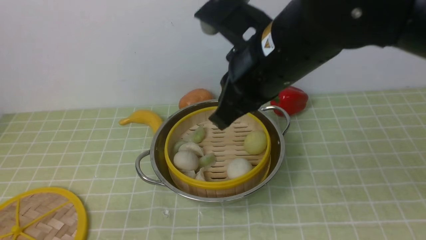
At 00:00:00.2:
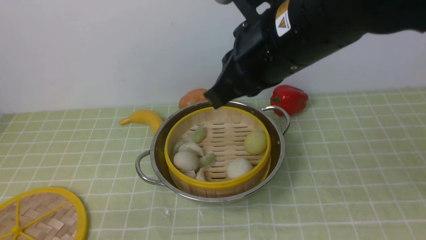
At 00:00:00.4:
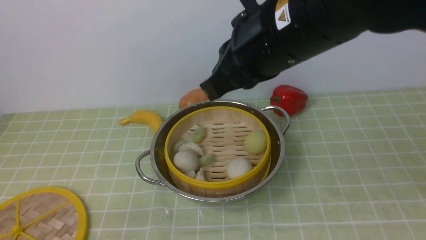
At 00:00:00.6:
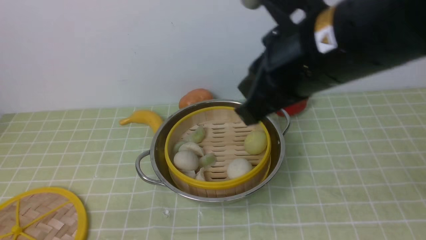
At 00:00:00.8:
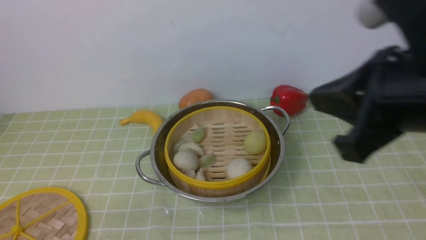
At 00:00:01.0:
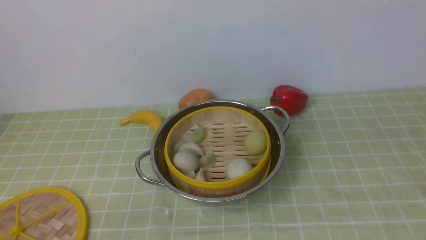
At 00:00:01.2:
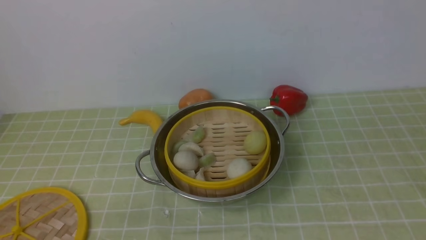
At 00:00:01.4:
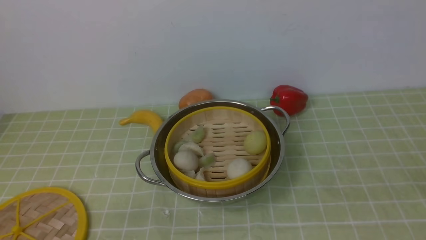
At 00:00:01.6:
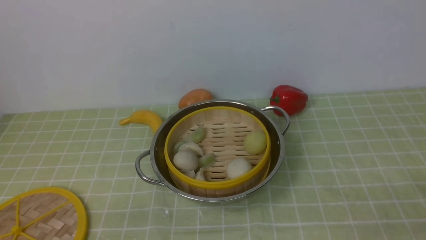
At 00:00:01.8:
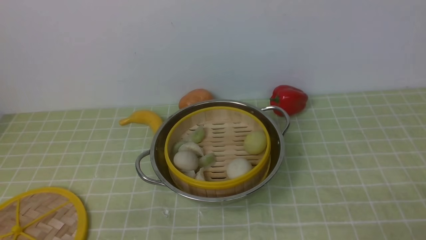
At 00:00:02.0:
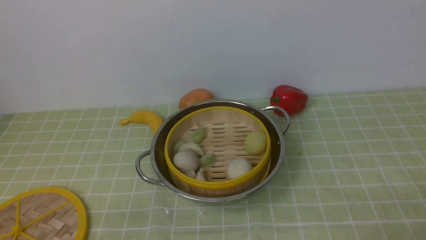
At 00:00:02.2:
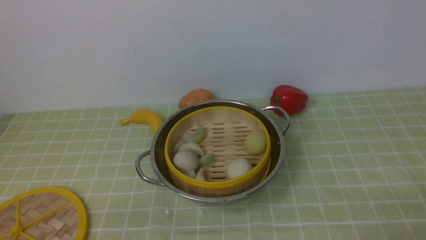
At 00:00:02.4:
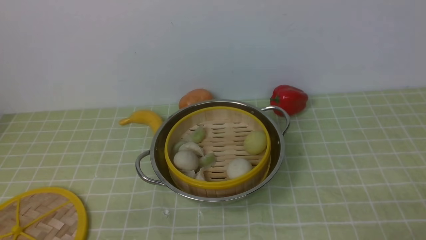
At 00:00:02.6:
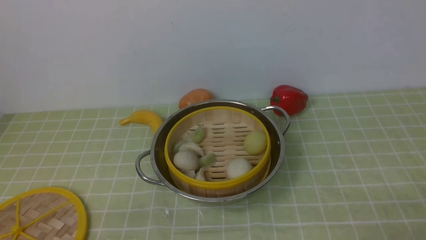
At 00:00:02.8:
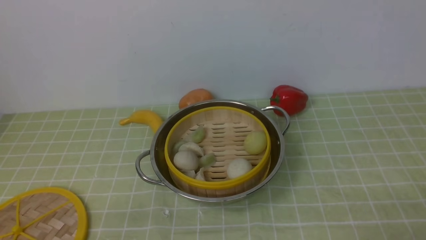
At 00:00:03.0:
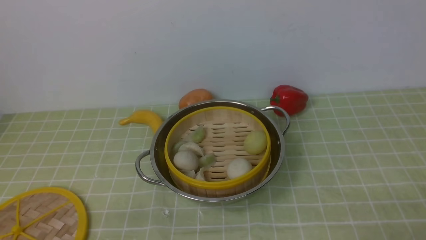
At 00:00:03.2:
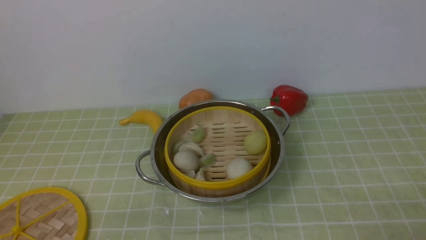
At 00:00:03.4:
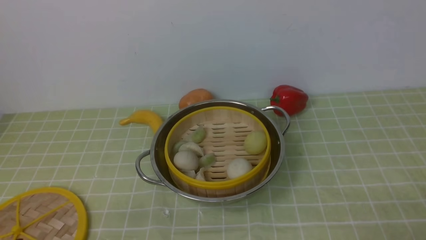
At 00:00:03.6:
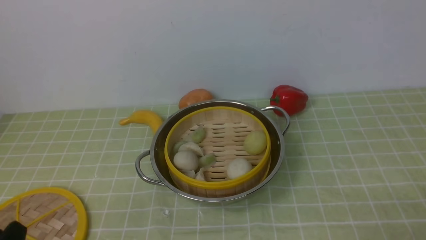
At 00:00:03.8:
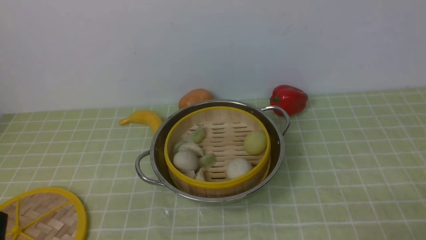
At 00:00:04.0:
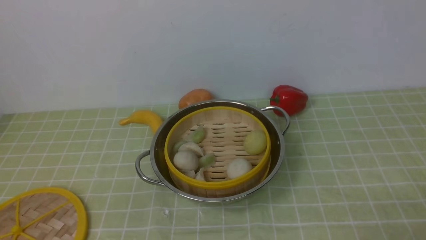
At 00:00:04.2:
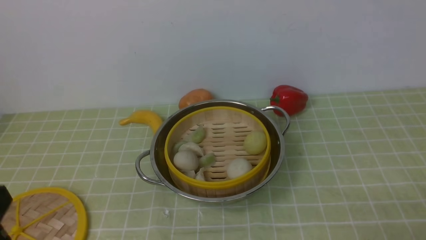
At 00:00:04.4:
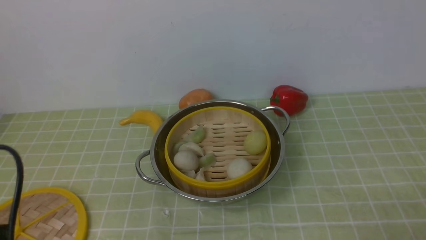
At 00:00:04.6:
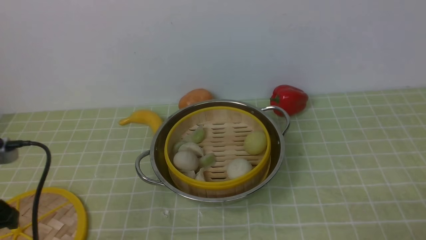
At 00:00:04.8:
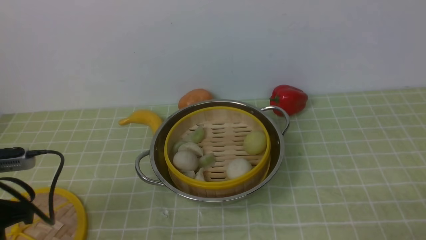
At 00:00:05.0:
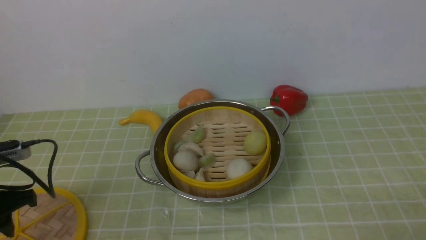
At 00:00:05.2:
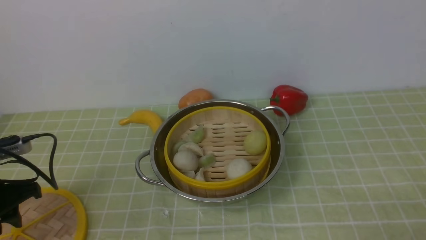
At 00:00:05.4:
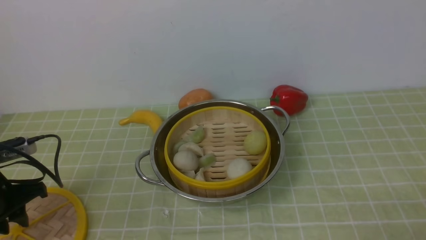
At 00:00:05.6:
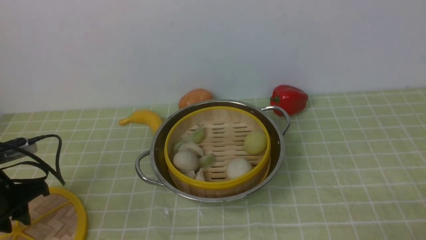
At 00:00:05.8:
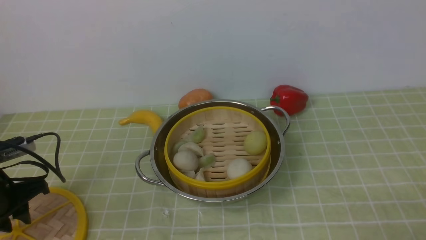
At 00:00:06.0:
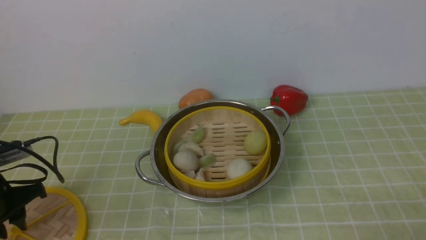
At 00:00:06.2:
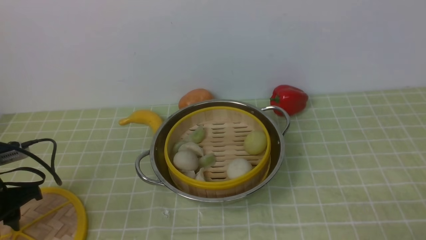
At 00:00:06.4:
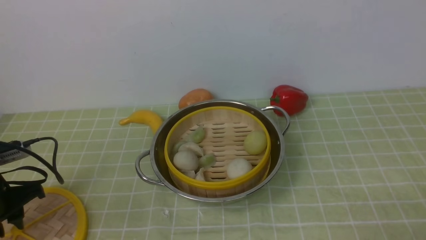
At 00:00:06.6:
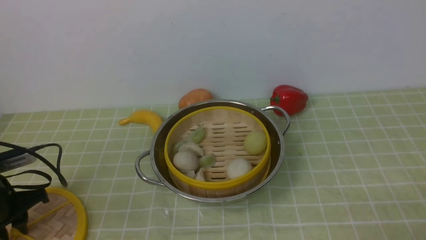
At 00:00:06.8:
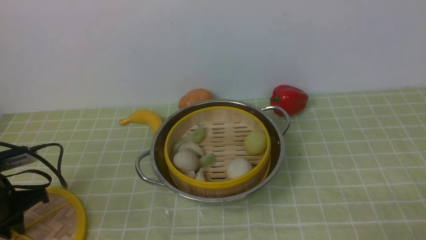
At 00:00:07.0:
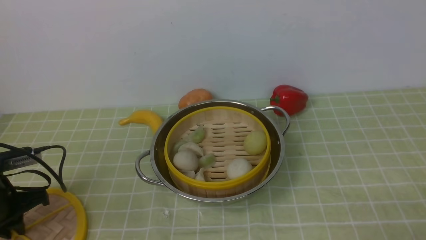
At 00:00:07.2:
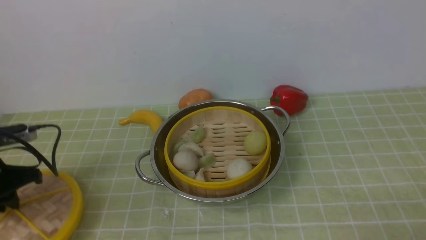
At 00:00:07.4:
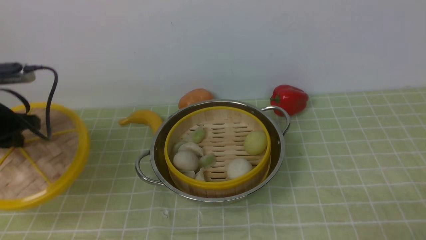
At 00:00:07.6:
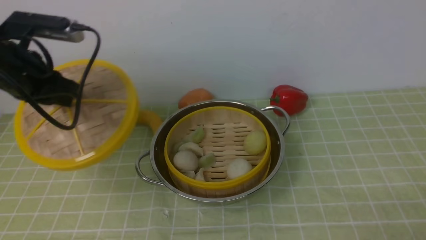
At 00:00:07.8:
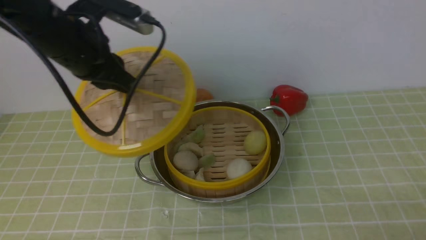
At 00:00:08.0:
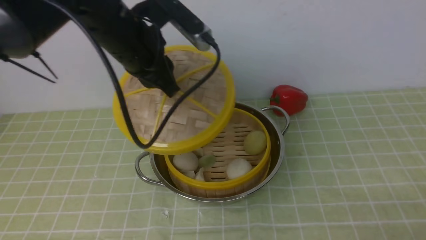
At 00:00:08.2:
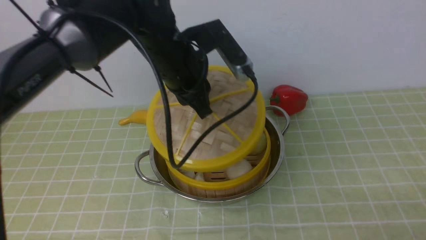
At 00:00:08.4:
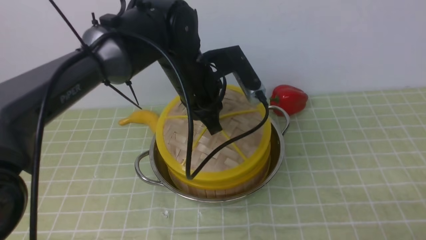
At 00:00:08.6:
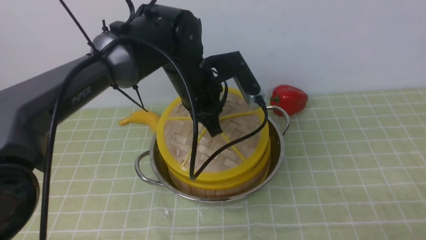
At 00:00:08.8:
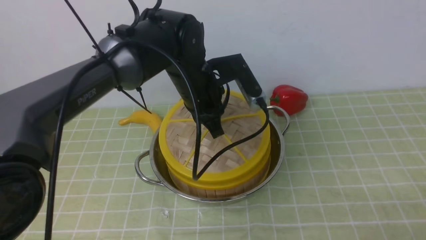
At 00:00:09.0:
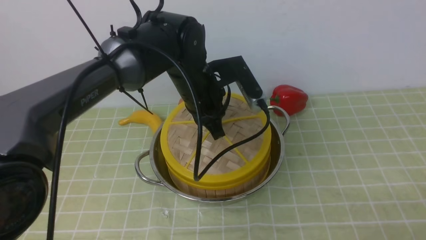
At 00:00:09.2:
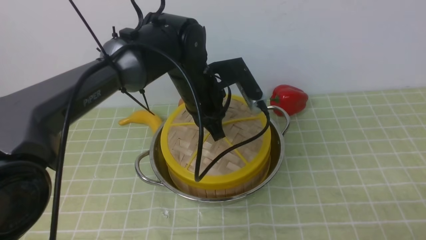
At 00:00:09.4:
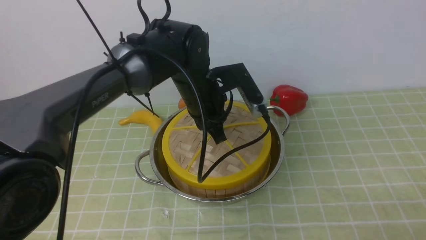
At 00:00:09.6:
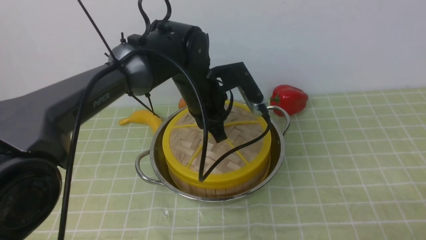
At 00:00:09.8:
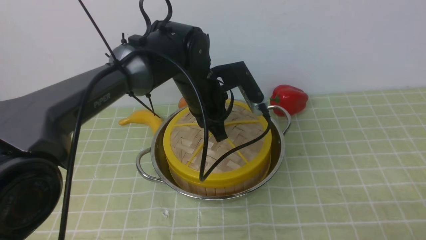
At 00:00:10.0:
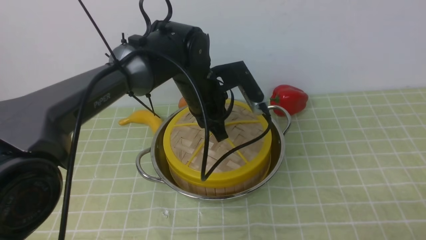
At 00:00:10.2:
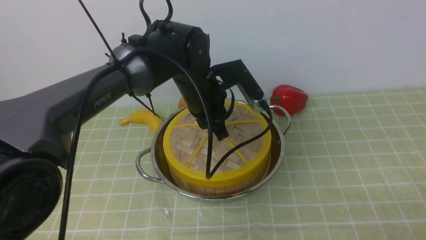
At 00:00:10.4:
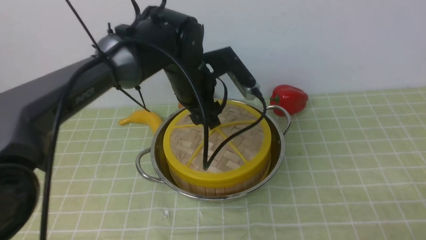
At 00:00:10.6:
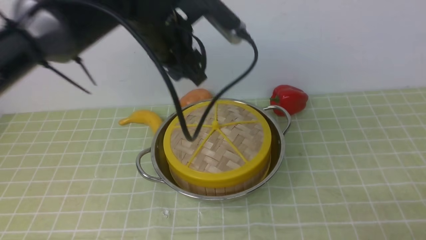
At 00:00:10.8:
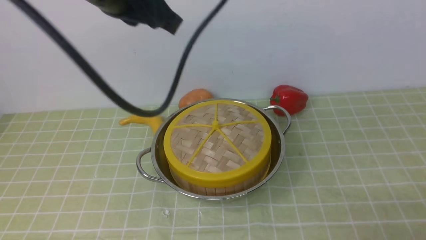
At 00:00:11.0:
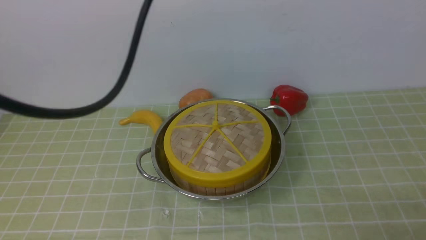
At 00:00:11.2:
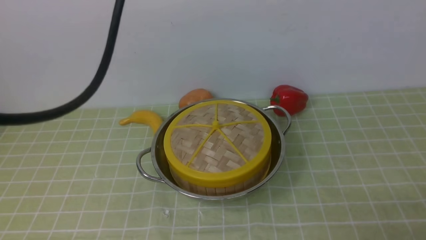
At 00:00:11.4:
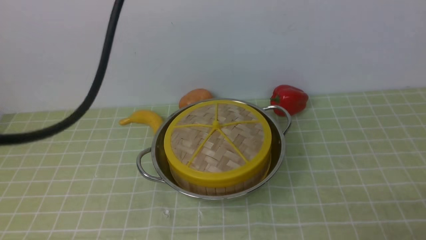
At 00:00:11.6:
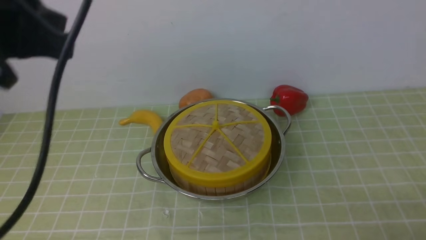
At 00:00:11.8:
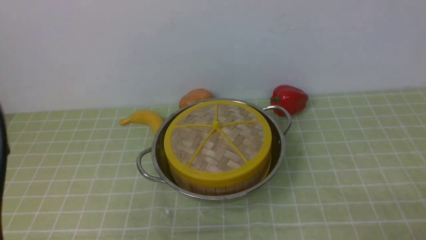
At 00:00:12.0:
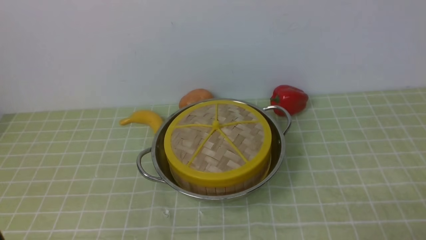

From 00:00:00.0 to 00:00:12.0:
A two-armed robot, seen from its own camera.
Task of the whole recording: place the steamer in the pot on the green tablecloth, and put the lid on the steamer.
Step, from 00:00:00.0 to 00:00:07.4: use the left arm to lift the lid of the steamer.
Step, from 00:00:07.6 to 00:00:10.8: use the left arm to place the steamer lid on the steamer.
From 00:00:00.0 to 00:00:01.6: The right gripper moves to the right and backward, about 35 cm.
From 00:00:03.0 to 00:00:04.4: The left gripper shifts approximately 10 cm upward.
From 00:00:04.4 to 00:00:06.0: The left gripper shifts approximately 20 cm forward, downward and to the left.
From 00:00:06.0 to 00:00:07.6: The left gripper heads upward and forward, covering approximately 15 cm, and closes its fingers.
From 00:00:07.6 to 00:00:09.0: The left gripper is displaced to the right by some 25 cm.
From 00:00:09.0 to 00:00:10.4: The left gripper opens up.
From 00:00:10.4 to 00:00:12.0: The left gripper moves backward and to the left, some 35 cm, and closes its fingers.

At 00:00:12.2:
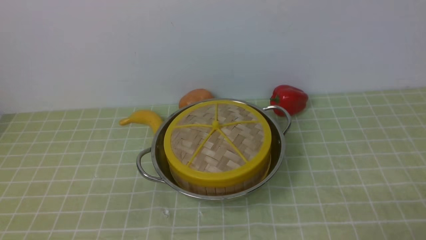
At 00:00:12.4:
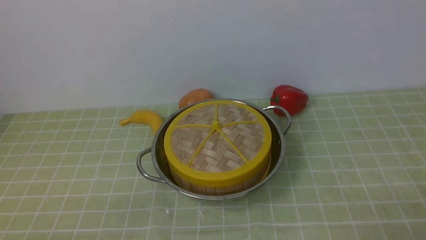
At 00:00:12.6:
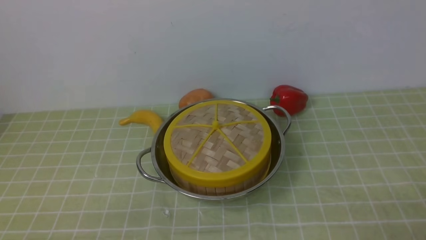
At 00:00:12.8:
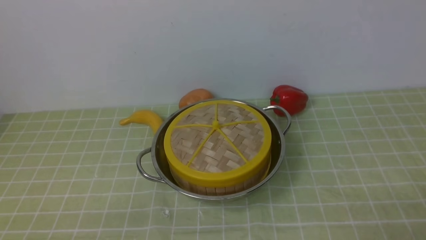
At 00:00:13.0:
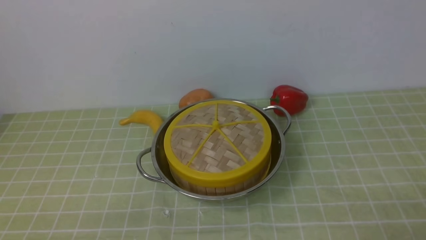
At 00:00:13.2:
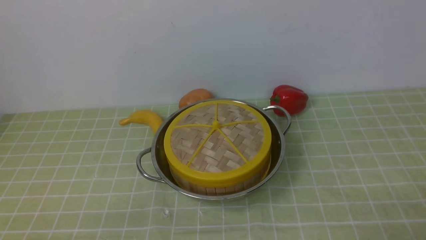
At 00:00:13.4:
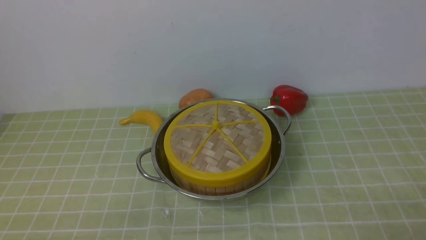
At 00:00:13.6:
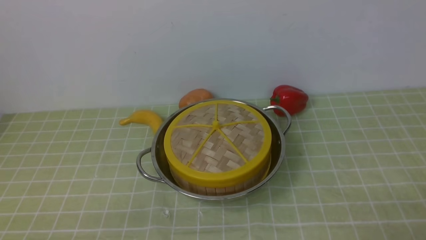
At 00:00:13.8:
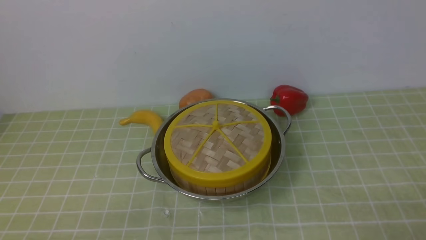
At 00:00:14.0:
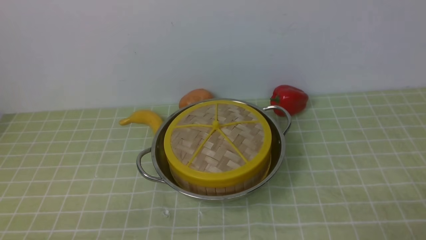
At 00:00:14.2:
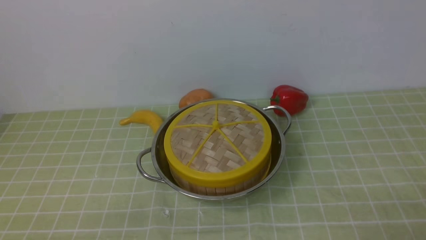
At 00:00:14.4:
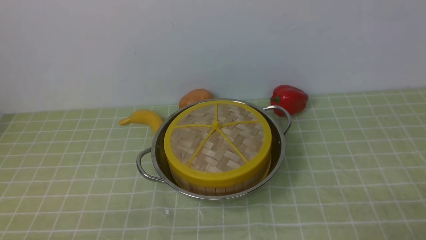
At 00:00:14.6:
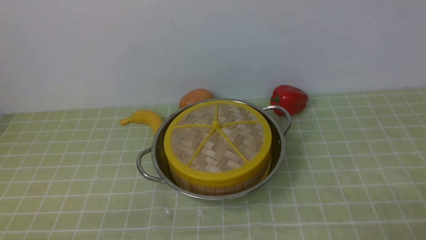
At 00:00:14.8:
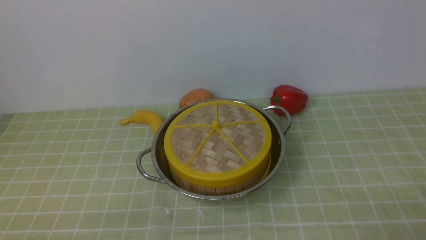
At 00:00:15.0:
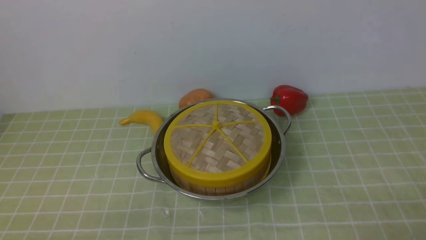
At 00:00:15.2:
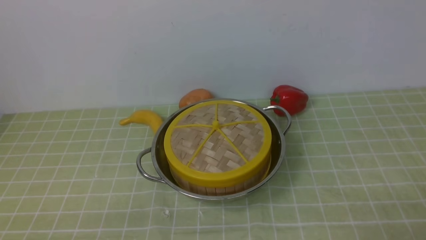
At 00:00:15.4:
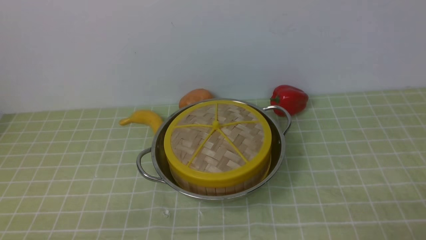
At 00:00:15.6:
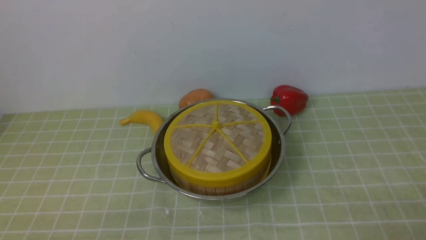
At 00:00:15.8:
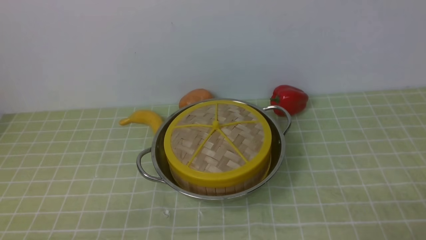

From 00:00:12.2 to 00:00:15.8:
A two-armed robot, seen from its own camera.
Task of the whole recording: place the steamer in the pot on the green tablecloth, and put the lid on the steamer.
From 00:00:14.0 to 00:00:15.8: Neither gripper changes place.
